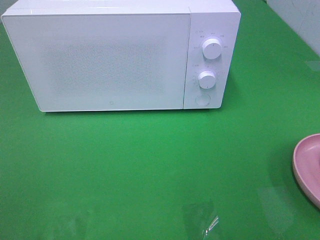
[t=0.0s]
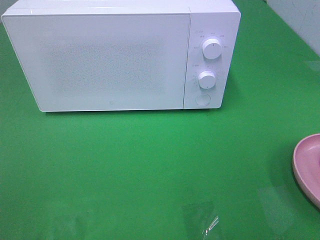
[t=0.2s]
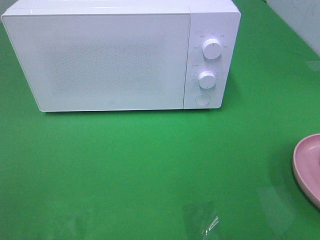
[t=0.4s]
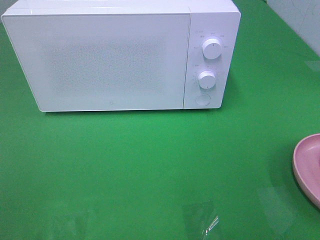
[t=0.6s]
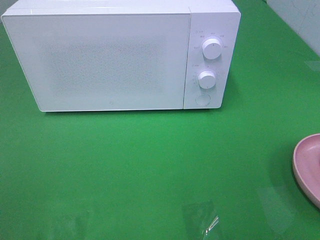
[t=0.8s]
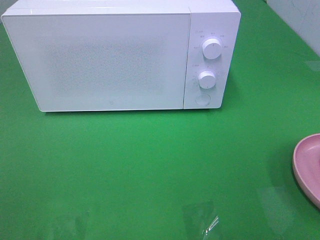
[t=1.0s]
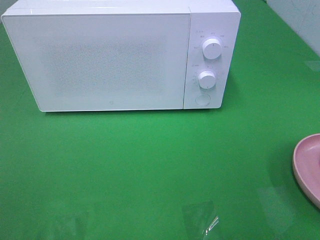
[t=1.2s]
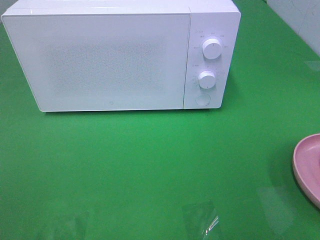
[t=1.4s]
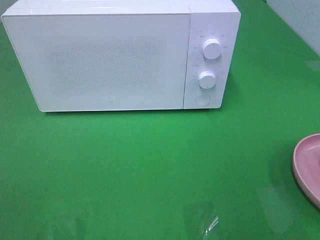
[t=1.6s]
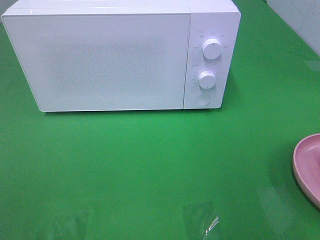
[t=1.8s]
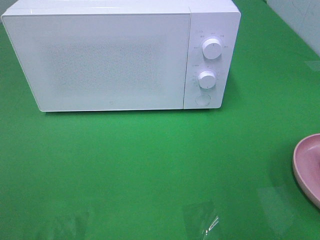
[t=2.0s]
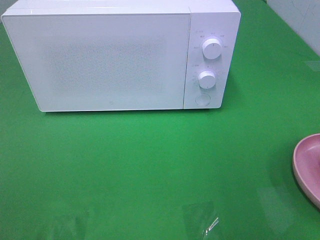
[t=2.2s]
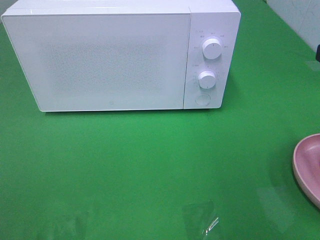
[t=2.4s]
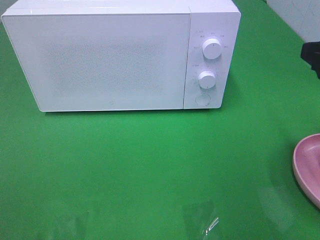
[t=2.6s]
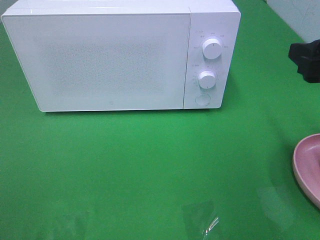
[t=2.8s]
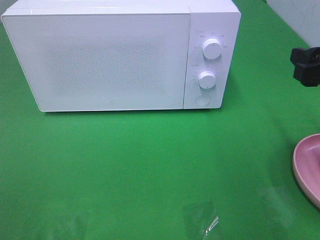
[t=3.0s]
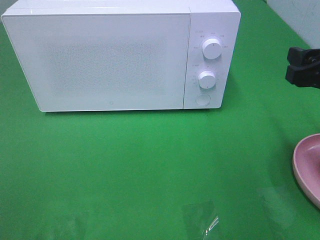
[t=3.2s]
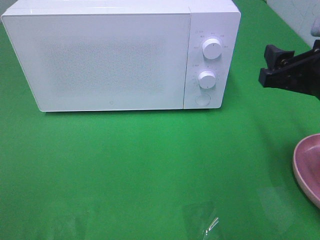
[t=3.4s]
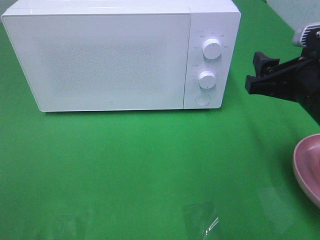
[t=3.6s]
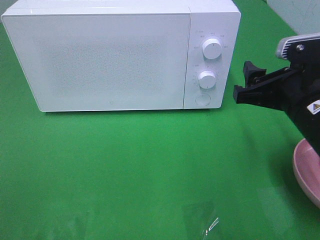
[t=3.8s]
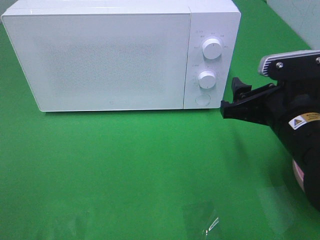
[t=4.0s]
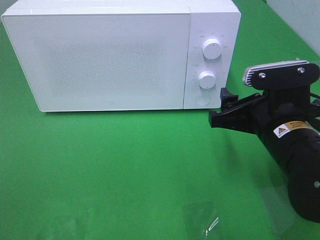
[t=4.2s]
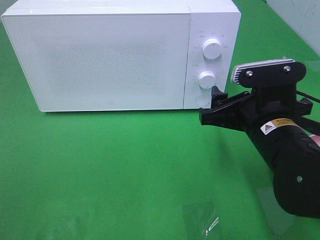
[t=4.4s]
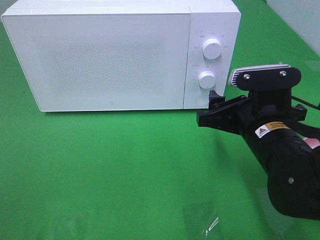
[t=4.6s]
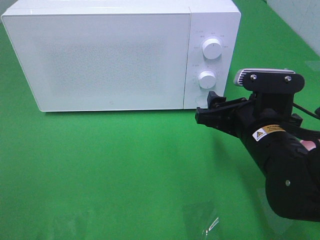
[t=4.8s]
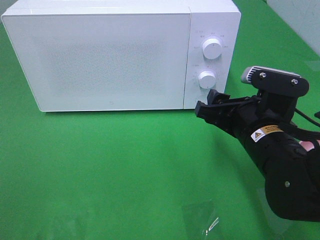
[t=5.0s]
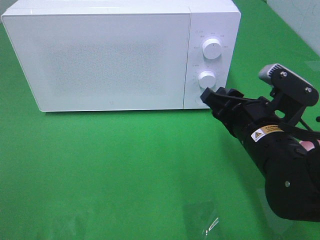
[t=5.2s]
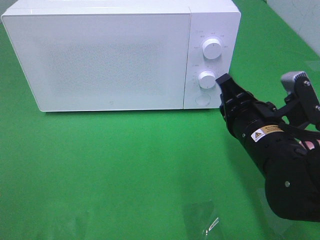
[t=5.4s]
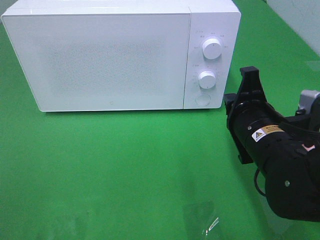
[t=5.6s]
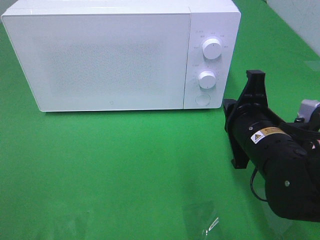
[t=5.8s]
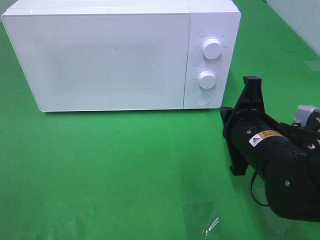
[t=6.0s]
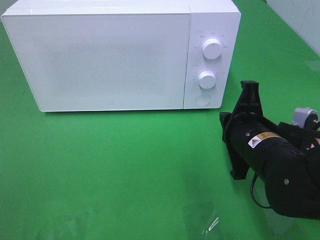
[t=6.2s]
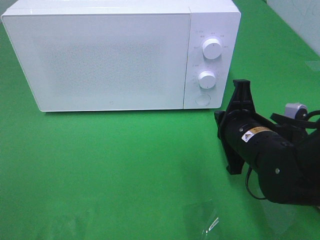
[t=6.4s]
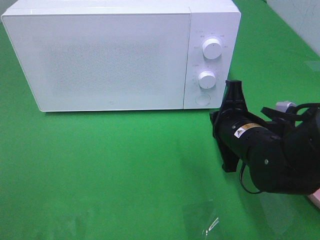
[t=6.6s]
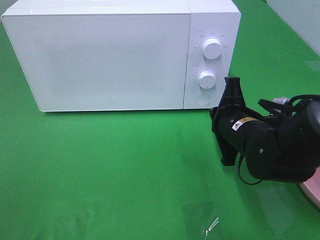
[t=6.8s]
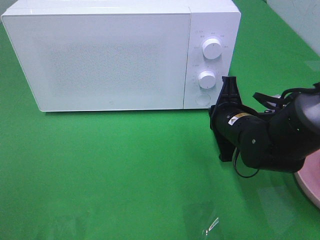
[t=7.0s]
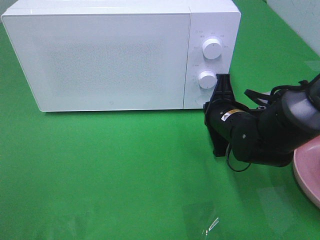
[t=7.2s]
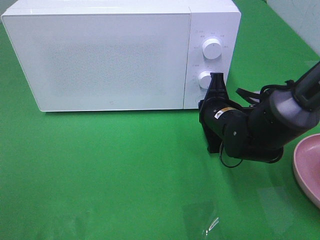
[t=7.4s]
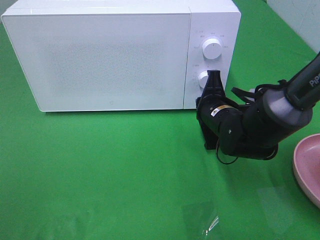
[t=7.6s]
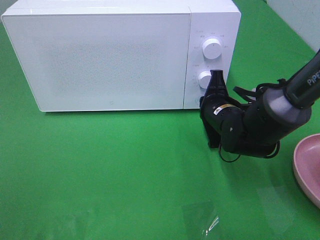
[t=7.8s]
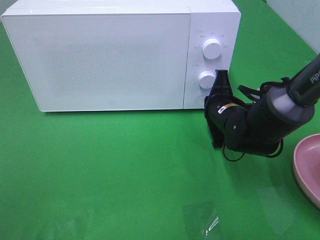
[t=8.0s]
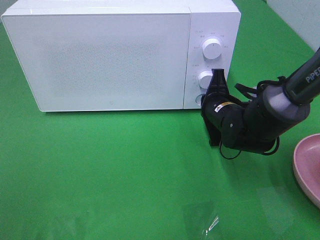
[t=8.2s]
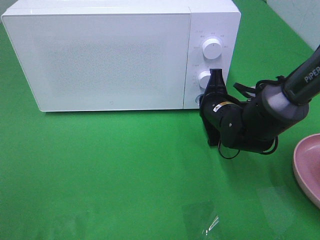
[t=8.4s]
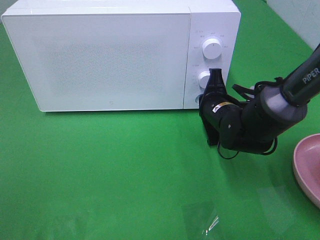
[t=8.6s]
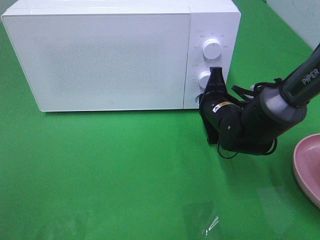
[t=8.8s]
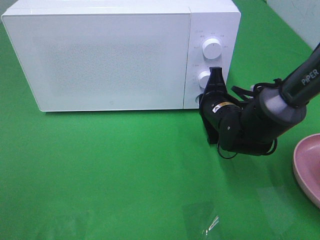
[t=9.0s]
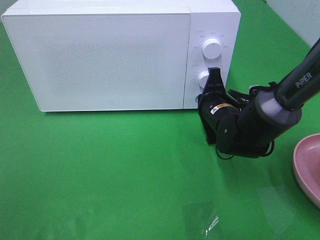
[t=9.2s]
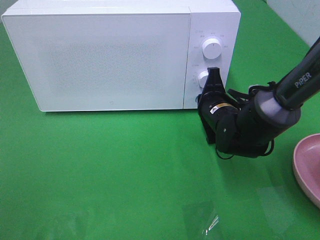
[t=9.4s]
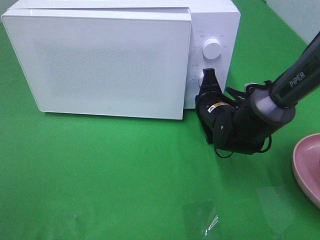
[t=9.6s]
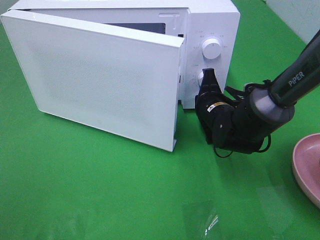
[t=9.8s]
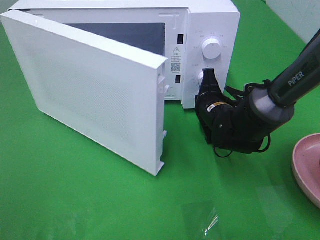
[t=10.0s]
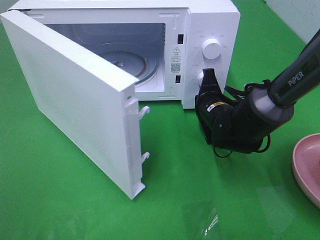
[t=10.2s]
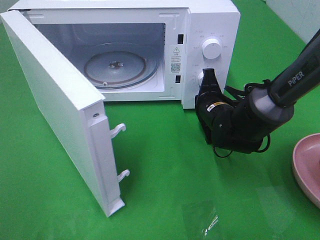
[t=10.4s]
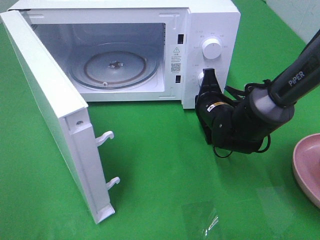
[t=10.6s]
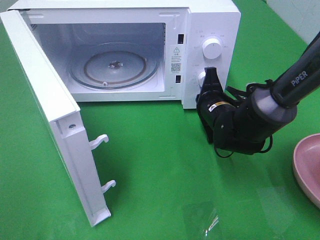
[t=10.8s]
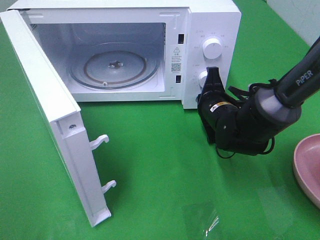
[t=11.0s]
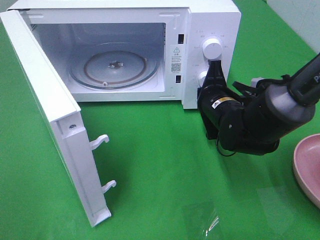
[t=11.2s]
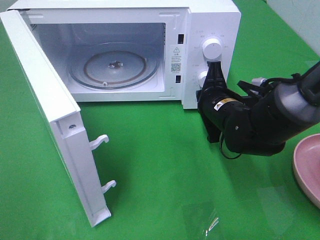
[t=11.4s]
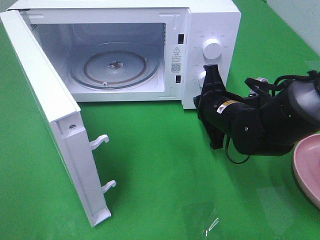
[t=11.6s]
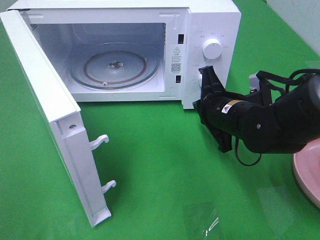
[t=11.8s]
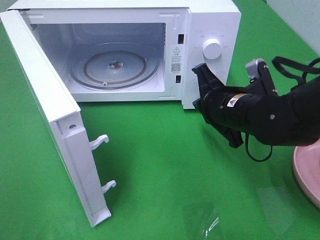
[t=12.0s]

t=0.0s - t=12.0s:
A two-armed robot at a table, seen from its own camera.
Task of the whole recording: Heat the burger.
Step, t=0.0s - t=11.0s: Right hand: press the switch.
t=1.6s - t=3.0s: The right gripper shifts about 15 cm forward and downward.
t=3.0s - t=4.4s: The right gripper moves to the left and downward, about 15 cm.
t=4.4s - t=6.0s: The right gripper closes up.
t=6.0s - t=7.6s: The right gripper moves forward, some 10 cm.
t=7.6s - t=9.0s: The grippers stay close to where they were, moving slightly.
t=10.4s - t=12.0s: The right gripper is displaced backward and upward by about 10 cm.

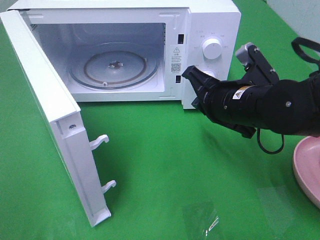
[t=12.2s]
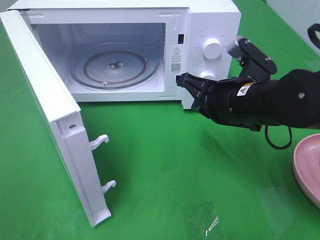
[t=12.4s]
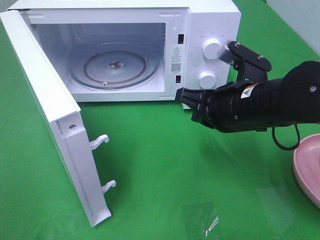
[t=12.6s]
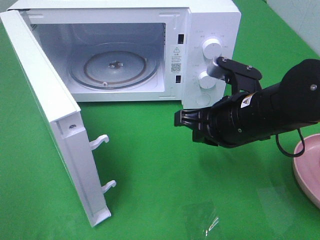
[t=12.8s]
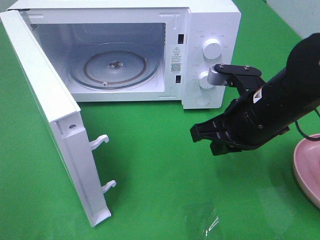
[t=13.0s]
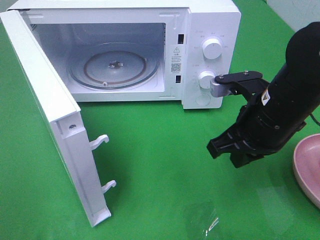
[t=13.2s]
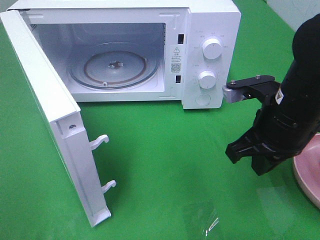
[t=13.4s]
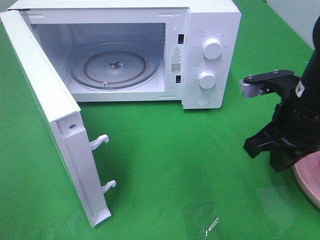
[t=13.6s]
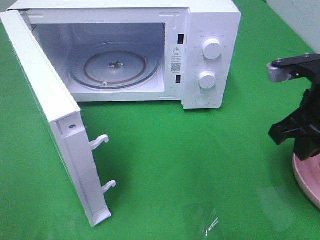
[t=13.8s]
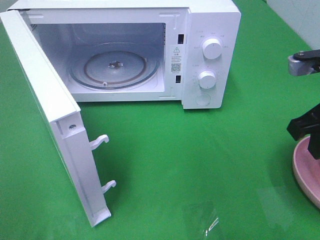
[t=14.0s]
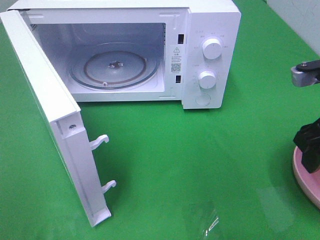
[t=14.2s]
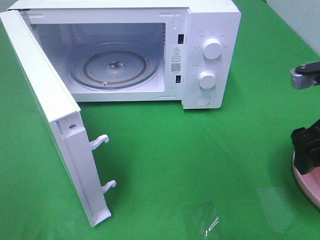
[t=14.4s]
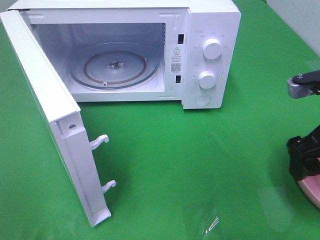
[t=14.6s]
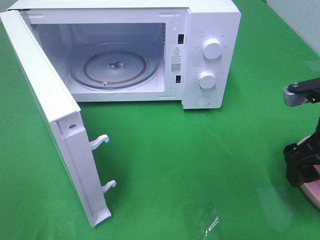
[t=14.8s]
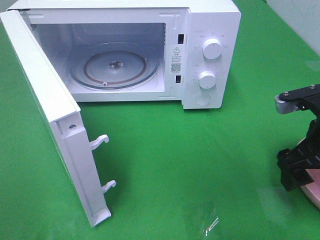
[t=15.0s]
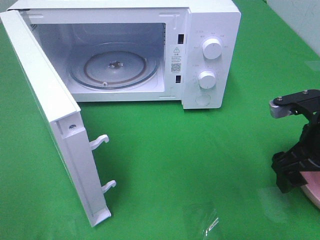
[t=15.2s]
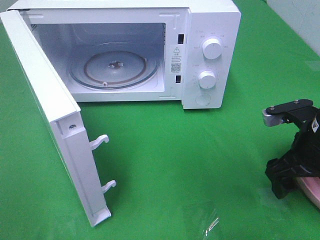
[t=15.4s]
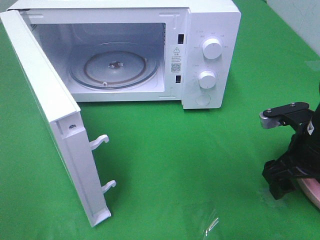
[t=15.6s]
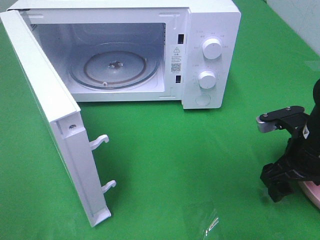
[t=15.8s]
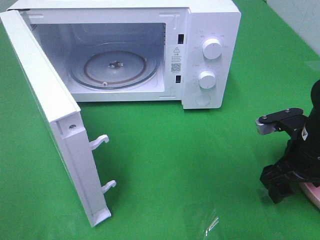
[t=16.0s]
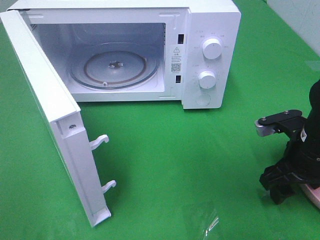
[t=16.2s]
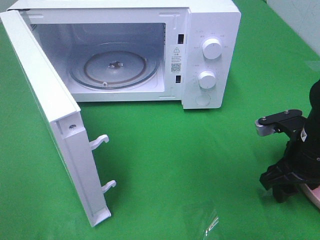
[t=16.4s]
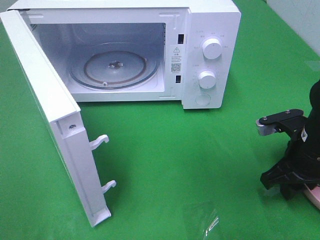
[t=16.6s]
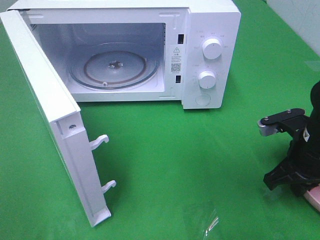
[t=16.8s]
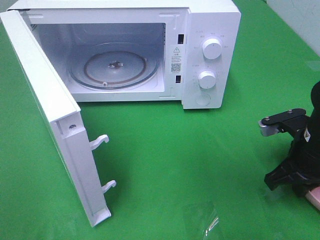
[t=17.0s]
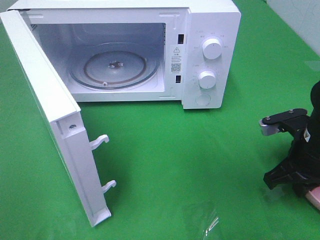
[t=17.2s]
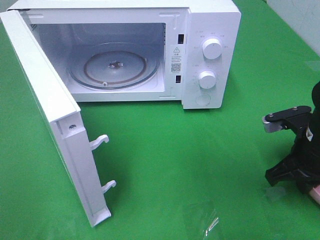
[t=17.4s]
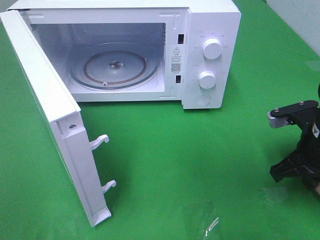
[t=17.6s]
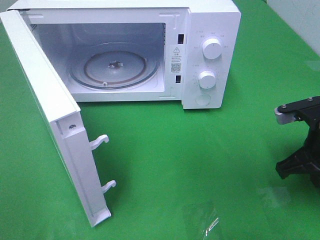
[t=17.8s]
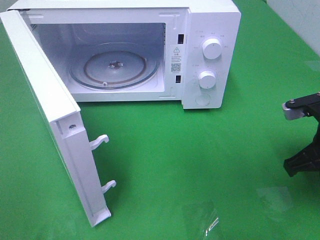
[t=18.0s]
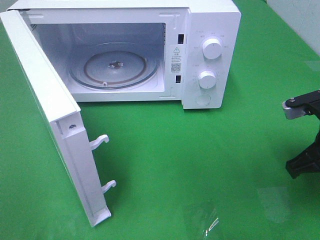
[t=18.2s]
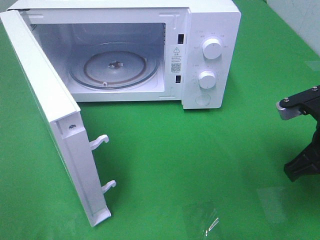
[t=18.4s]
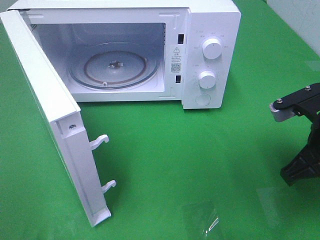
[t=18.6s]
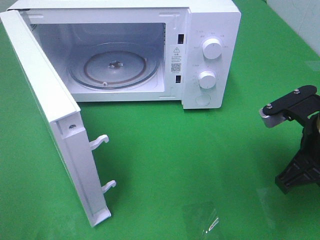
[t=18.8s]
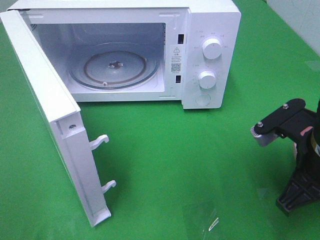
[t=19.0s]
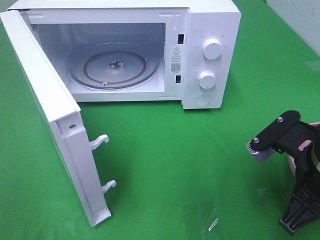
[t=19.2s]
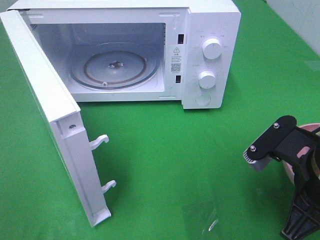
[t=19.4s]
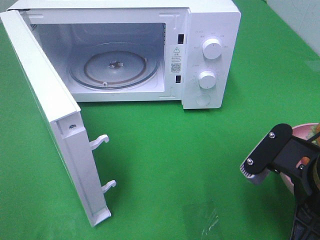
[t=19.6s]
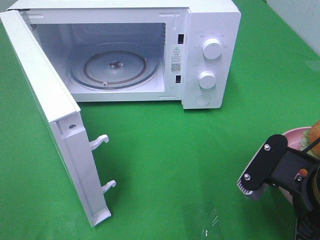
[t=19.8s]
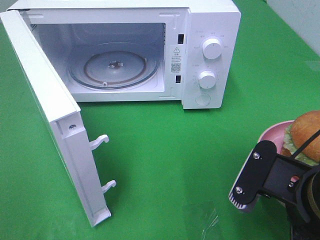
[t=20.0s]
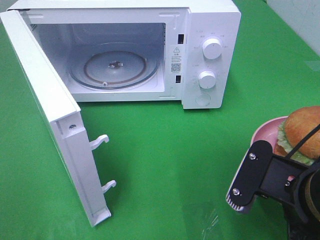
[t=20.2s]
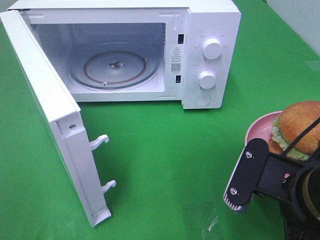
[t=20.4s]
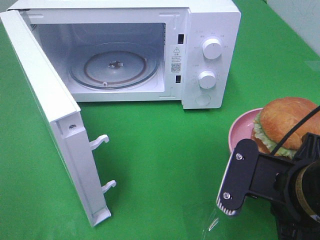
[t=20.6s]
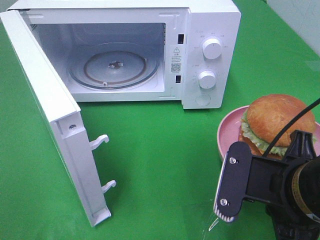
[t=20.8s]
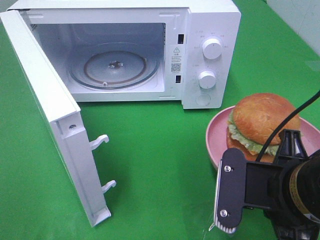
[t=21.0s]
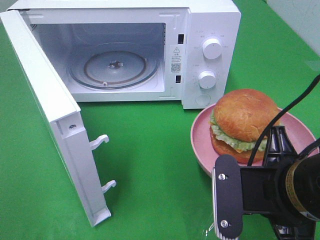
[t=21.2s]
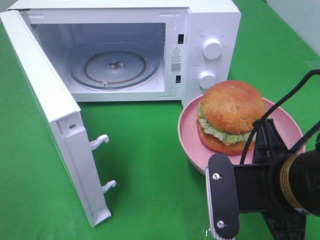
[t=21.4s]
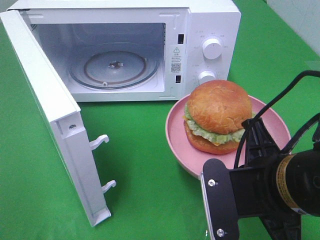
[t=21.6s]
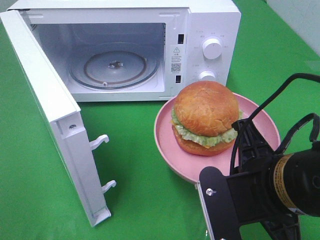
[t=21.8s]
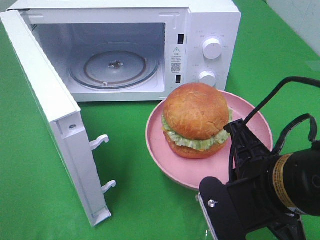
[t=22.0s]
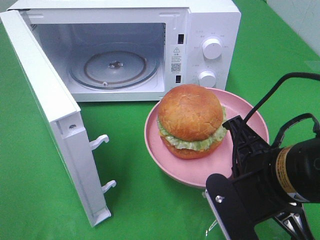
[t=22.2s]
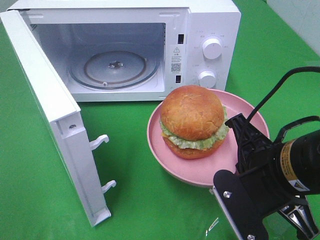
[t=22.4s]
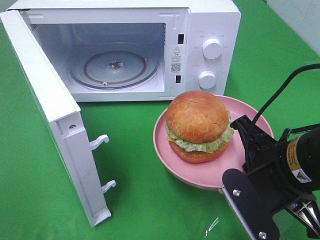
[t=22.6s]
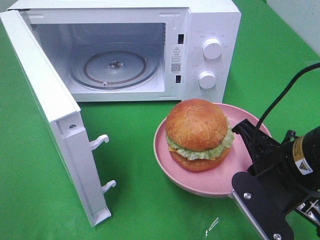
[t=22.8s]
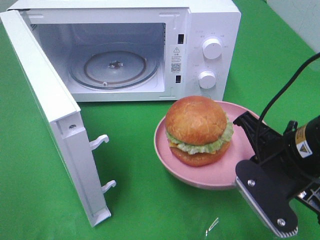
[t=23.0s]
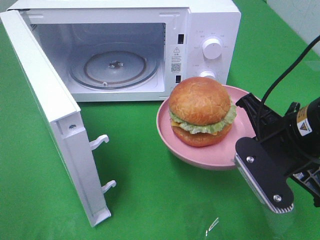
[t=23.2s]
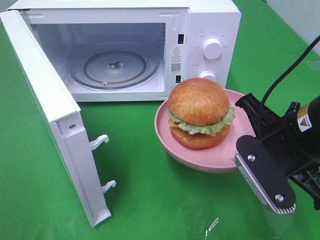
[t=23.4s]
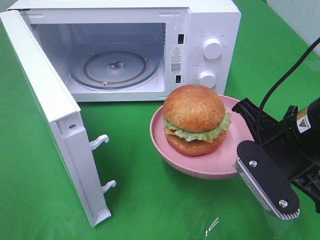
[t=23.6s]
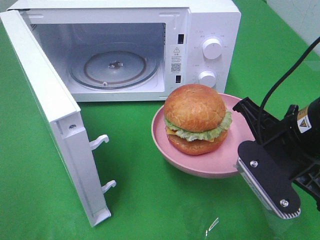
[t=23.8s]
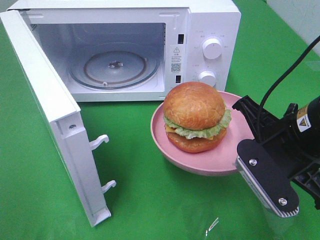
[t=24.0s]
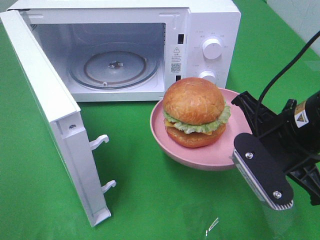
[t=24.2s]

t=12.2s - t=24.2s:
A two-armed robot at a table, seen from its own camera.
Task of the whole recording: Heat the burger.
Step, t=12.2s - t=16.8s: Right hand: grab the plate with the hamburger.
t=12.2s - t=13.8s: The right gripper goes about 10 cm to the right and upward.
t=13.8s - t=15.2s: The right gripper is displaced downward by approximately 5 cm, and opens its fingers.
t=15.2s - t=16.6s: The right gripper closes its fingers.
t=16.6s - t=18.2s: The right gripper travels upward by roughly 5 cm, and closes its fingers.
t=18.2s - t=19.8s: The right gripper heads backward and to the left, covering approximately 10 cm.
t=22.6s - t=24.2s: The grippers stay close to where they were, moving slightly.
